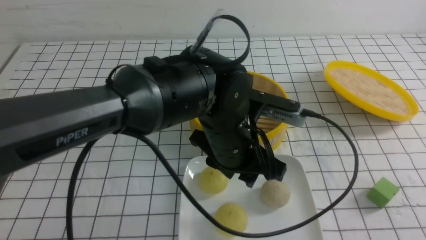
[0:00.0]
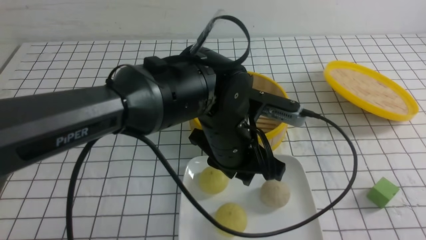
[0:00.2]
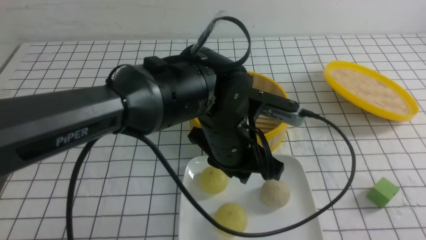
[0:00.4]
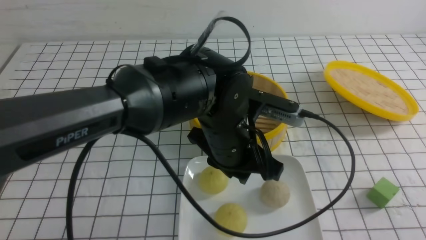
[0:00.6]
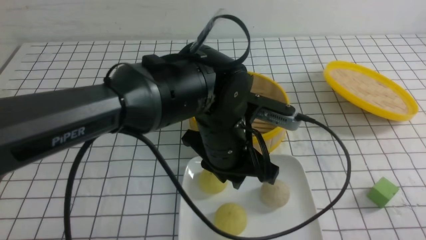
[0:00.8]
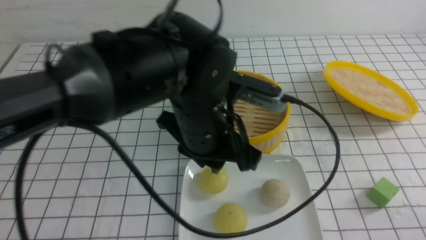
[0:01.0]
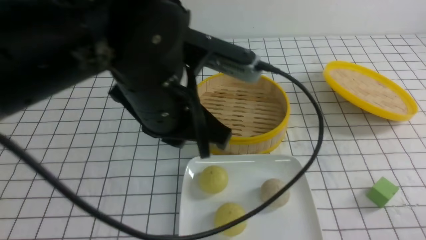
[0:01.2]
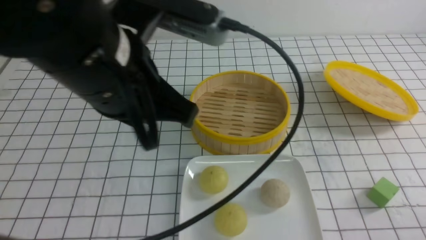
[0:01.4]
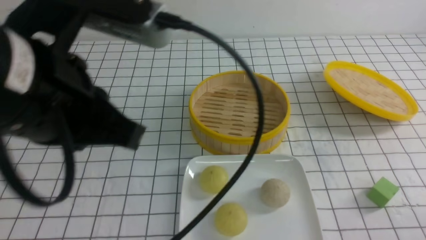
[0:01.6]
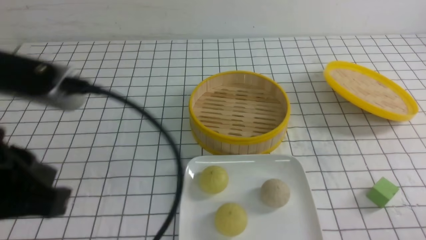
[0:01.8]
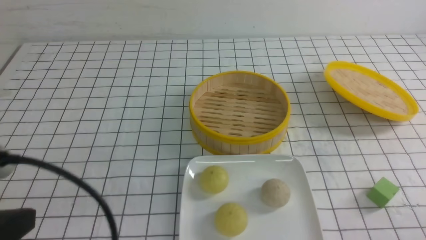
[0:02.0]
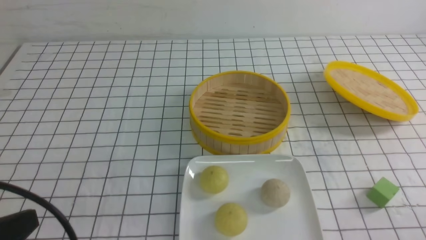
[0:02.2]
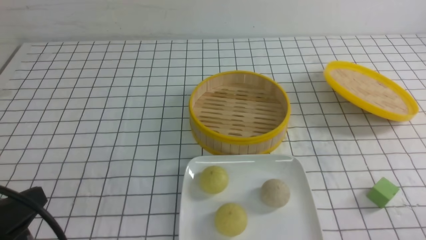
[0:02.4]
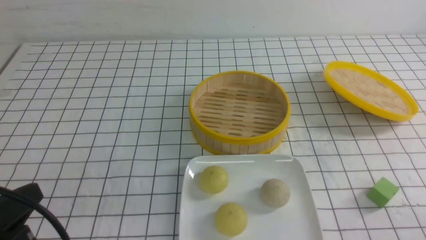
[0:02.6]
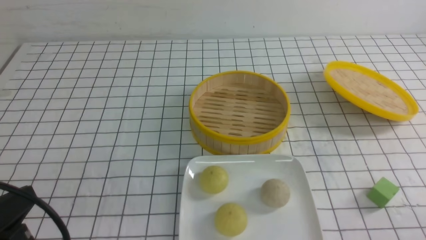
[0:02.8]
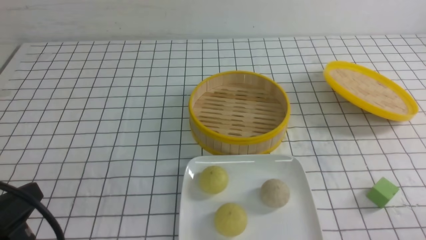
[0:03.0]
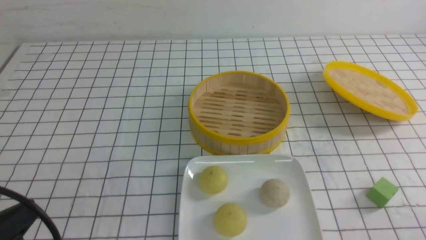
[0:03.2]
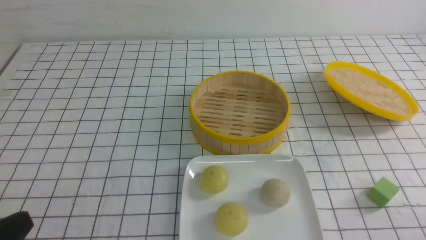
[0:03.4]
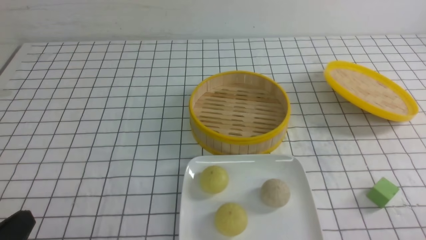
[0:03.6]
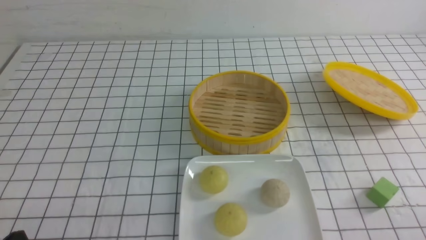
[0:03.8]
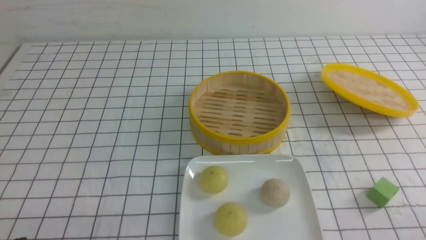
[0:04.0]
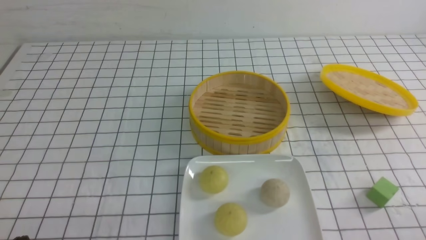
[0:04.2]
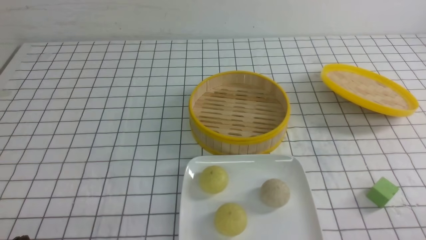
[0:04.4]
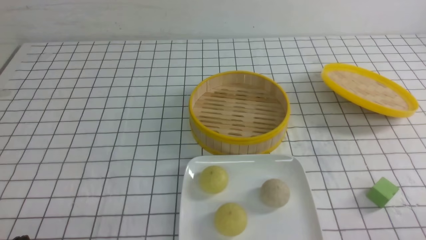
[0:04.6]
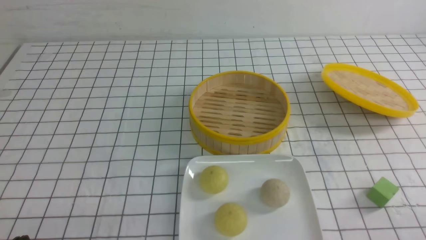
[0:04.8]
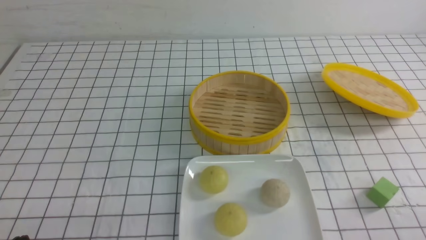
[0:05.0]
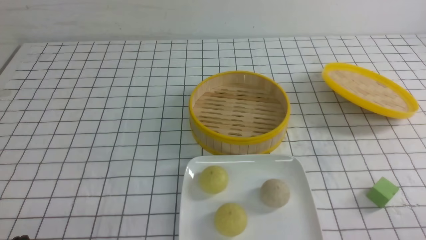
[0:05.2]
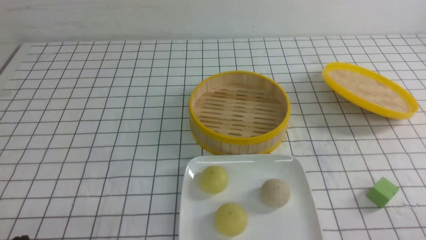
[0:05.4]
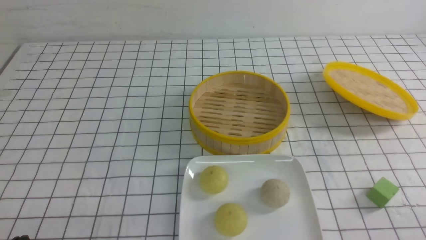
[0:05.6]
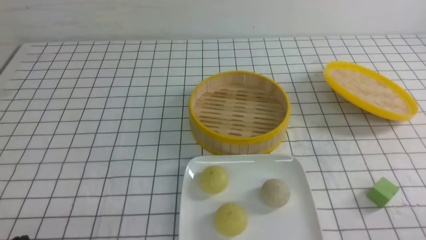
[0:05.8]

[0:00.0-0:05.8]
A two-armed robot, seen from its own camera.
0:00.0 to 0:01.4: The right gripper heads downward, covering some 10 cm; the left gripper moves upward, to the left and backward, some 20 cm, and closes.
0:01.4 to 0:02.8: The left gripper heads to the left, downward and backward, covering approximately 20 cm.
0:02.8 to 0:04.4: The left gripper moves downward, about 10 cm.
0:04.4 to 0:05.8: Neither gripper changes place.
